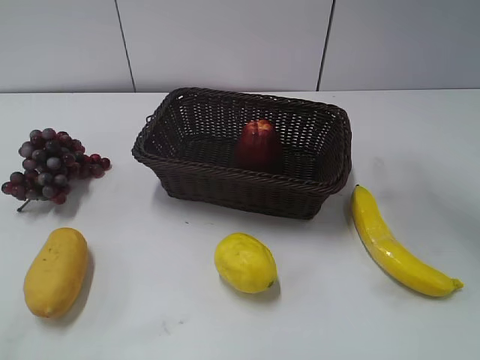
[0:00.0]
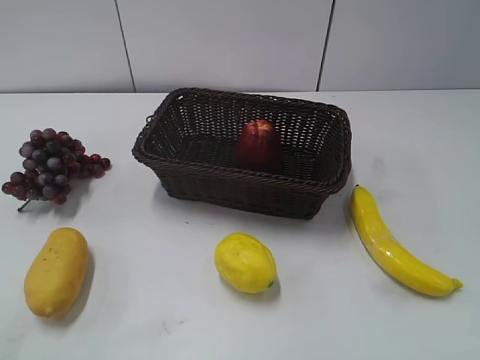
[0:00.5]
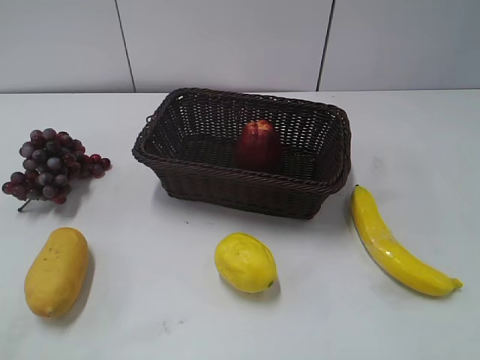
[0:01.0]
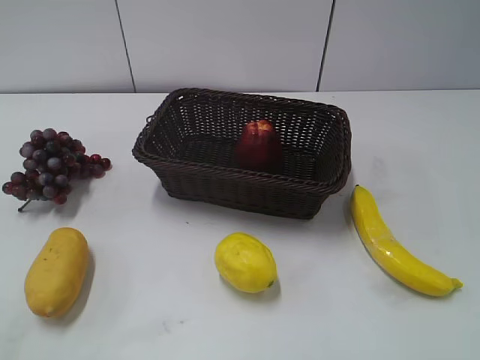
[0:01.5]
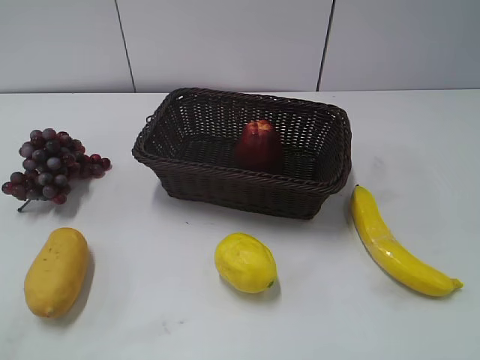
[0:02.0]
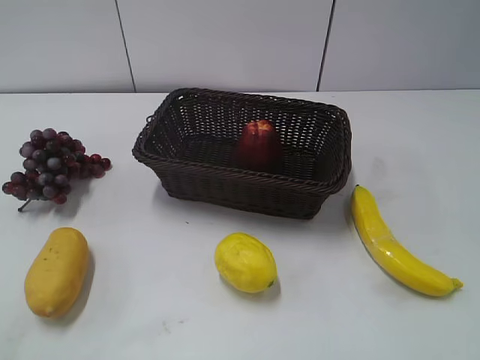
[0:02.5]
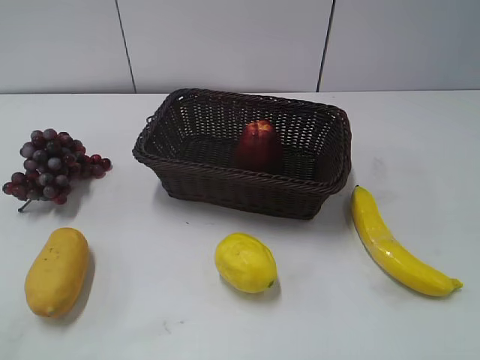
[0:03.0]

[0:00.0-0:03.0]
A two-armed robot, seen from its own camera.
0:00.0 to 0:01.5: The right gripper heads backward, covering about 35 cm.
